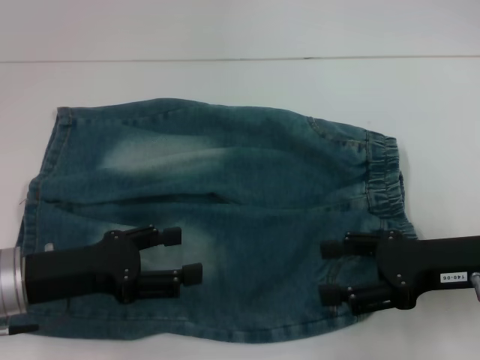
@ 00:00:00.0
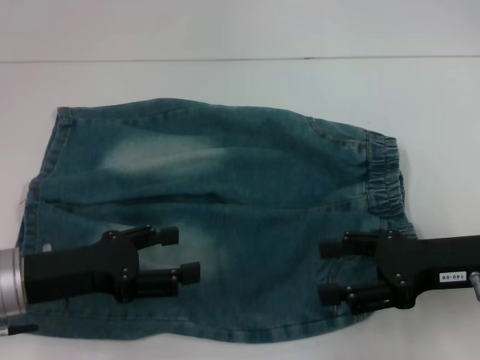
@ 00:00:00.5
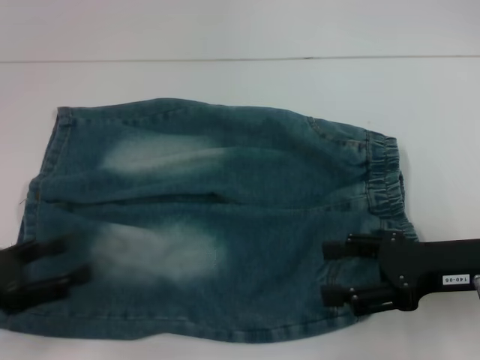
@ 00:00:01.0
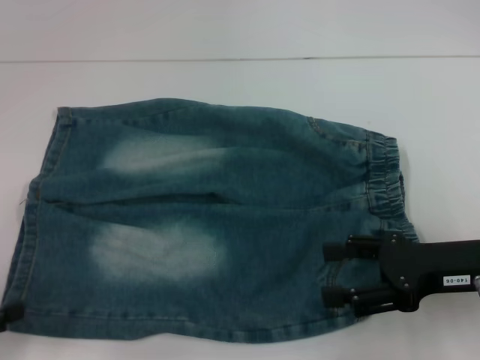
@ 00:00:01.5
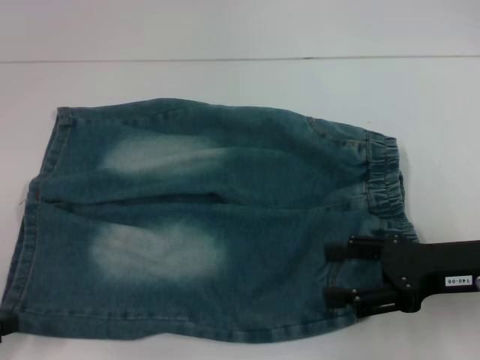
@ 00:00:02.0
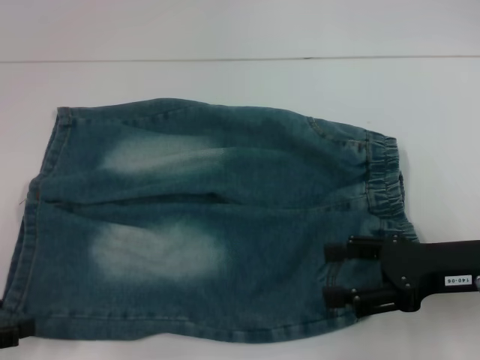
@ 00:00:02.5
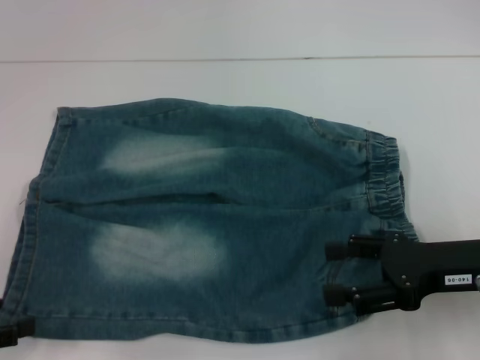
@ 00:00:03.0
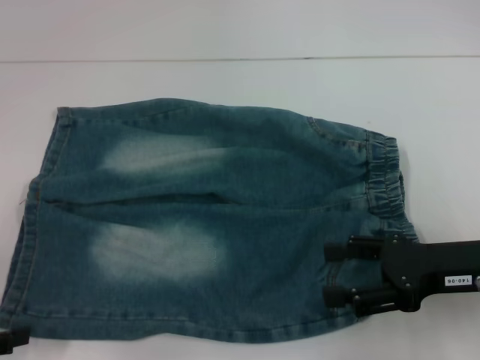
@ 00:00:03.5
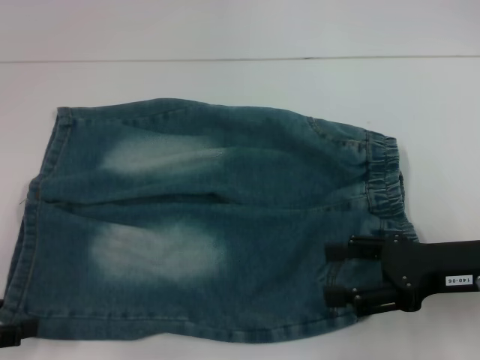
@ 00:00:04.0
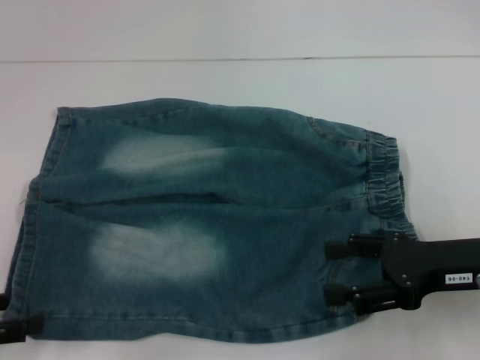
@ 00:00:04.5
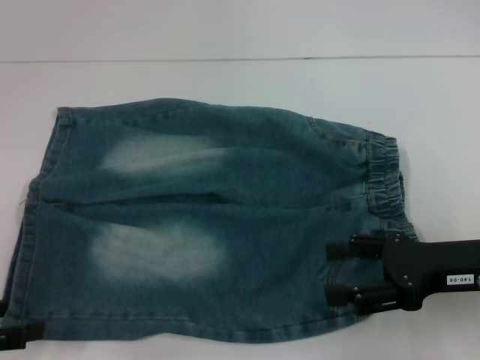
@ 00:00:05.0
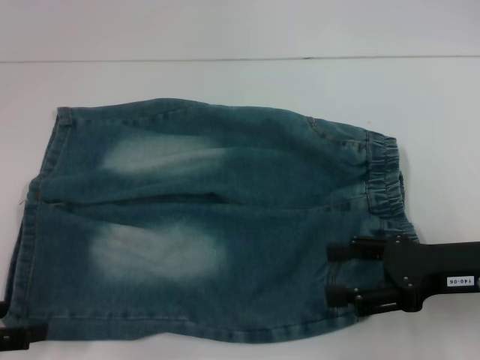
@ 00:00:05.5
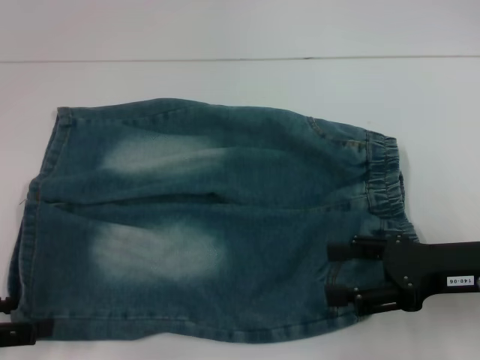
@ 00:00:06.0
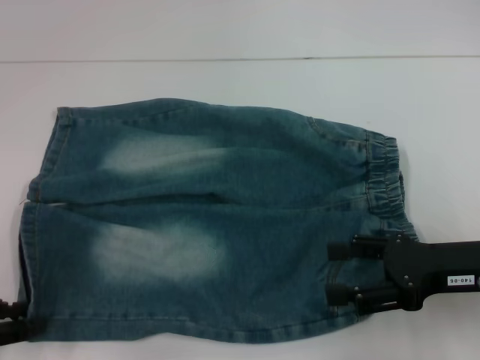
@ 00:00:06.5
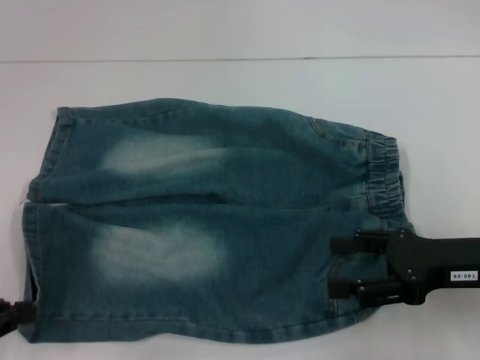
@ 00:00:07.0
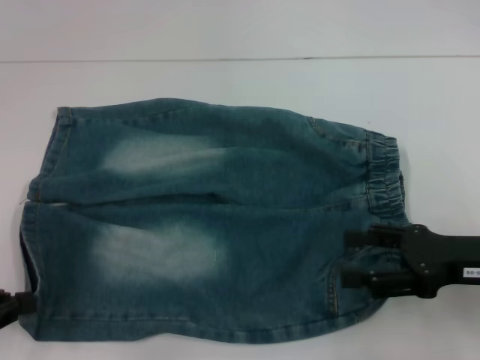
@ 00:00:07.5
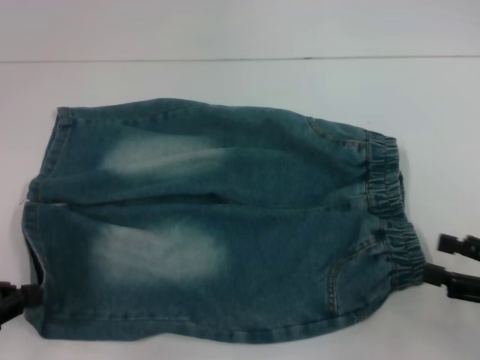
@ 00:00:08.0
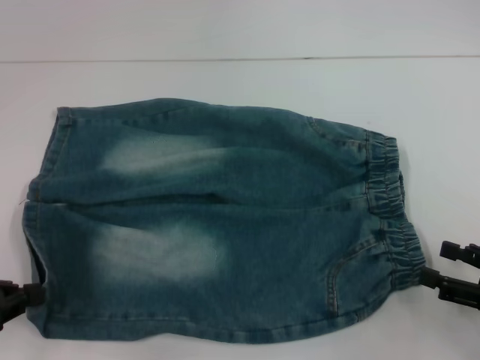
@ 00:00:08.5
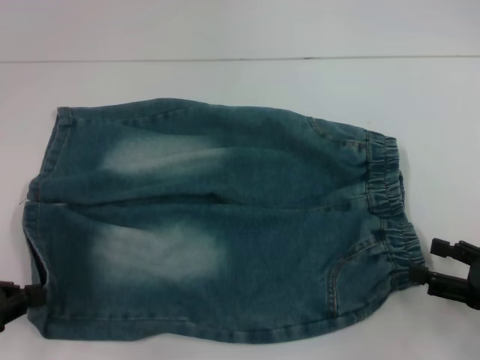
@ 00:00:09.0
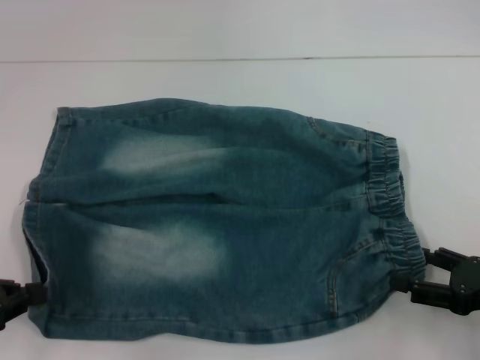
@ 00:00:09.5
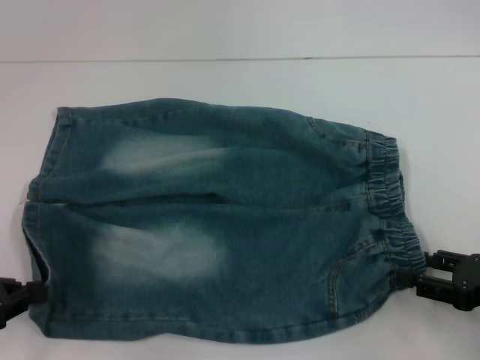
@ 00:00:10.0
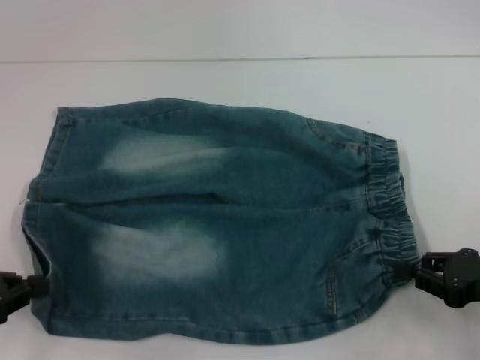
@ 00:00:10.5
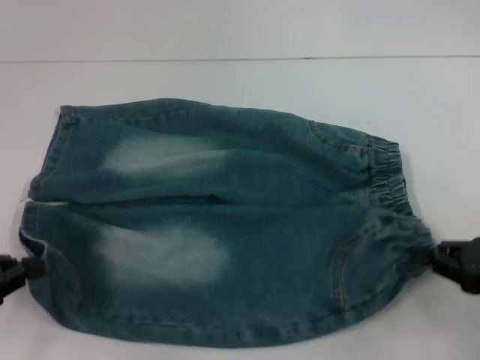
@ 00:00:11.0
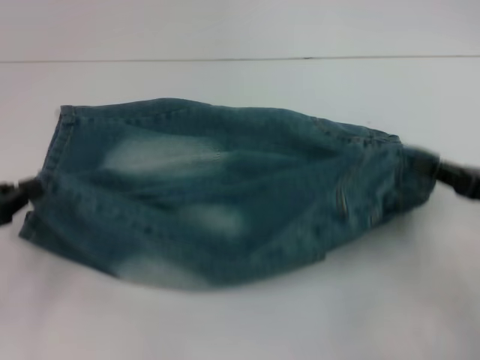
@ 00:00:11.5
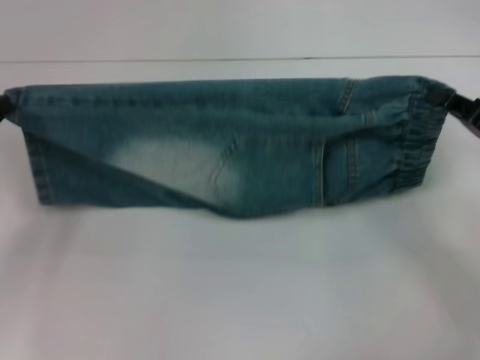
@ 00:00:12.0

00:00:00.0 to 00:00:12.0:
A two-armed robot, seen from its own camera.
Step, 00:00:00.0 to 00:00:07.0: Grab the lower left pant leg with your left hand.
Step, 00:00:07.5 to 00:00:10.5: Hold the lower right waistband with your right hand.
00:00:00.0 to 00:00:02.0: The left gripper is displaced to the left and backward by approximately 15 cm.
00:00:06.0 to 00:00:08.0: The left gripper closes its fingers. Meanwhile the right gripper shifts about 10 cm to the right and backward.
00:00:08.0 to 00:00:10.0: The grippers stay close to where they were, moving slightly.
00:00:10.0 to 00:00:12.0: Both grippers travel together forward, approximately 10 cm. The right gripper closes up.

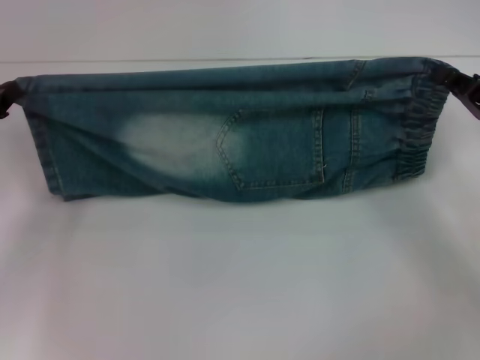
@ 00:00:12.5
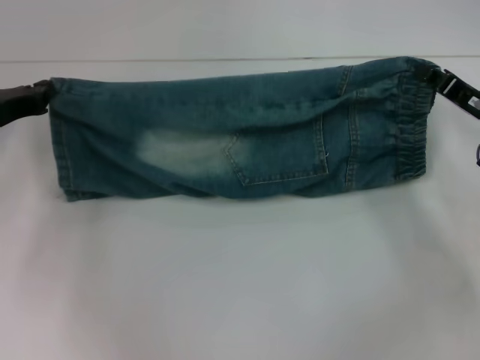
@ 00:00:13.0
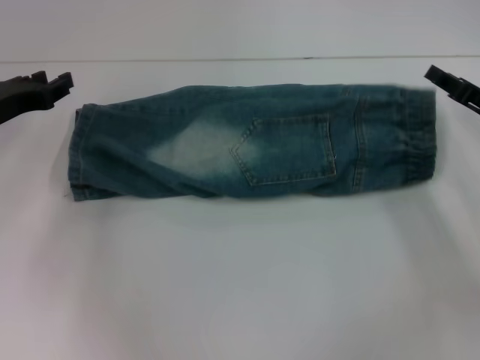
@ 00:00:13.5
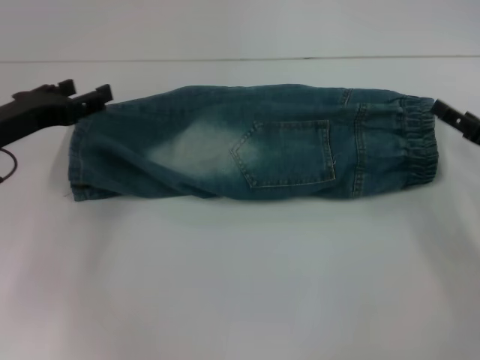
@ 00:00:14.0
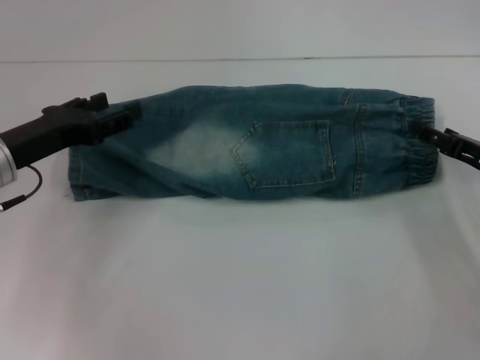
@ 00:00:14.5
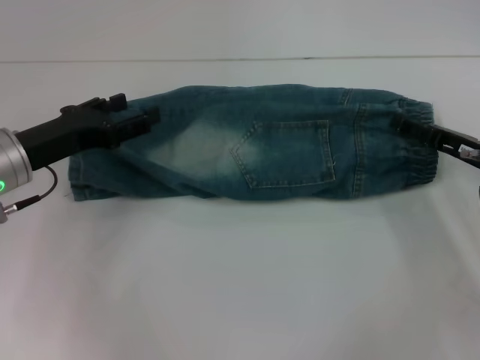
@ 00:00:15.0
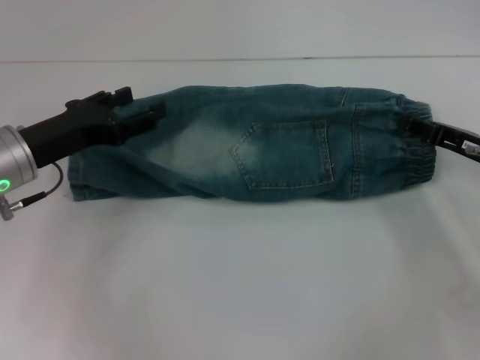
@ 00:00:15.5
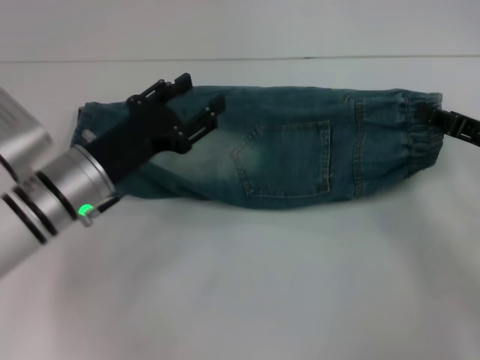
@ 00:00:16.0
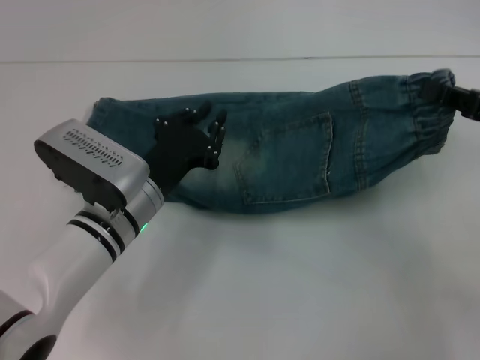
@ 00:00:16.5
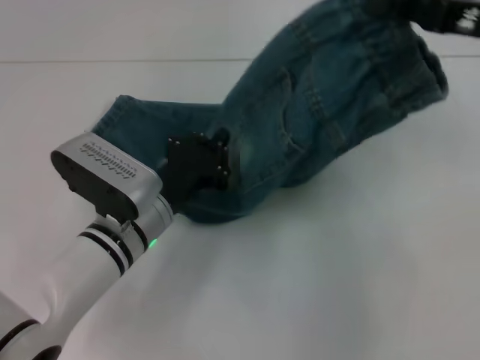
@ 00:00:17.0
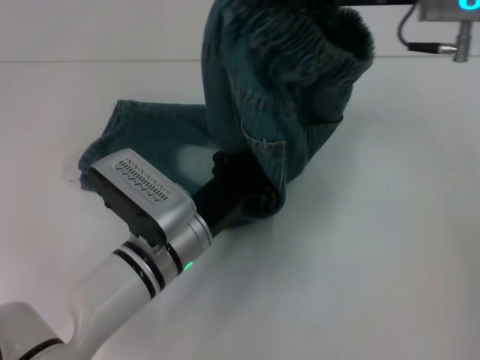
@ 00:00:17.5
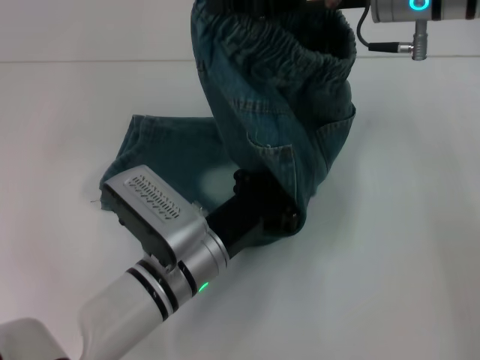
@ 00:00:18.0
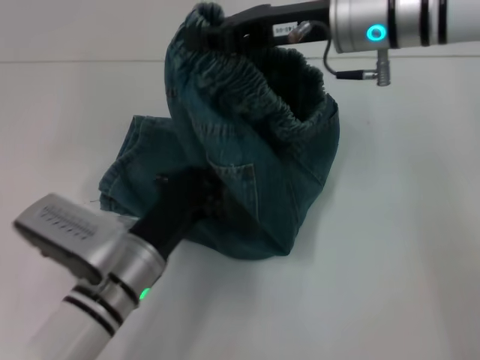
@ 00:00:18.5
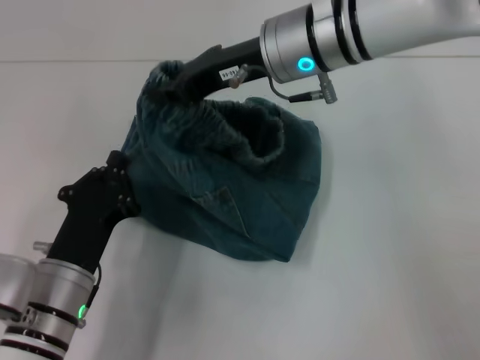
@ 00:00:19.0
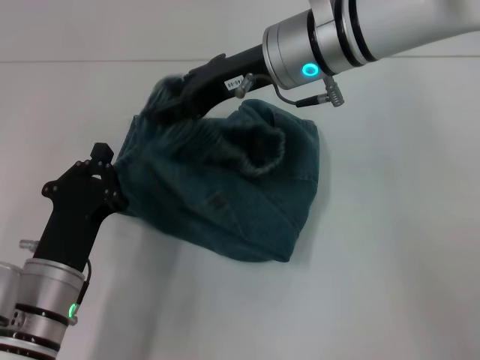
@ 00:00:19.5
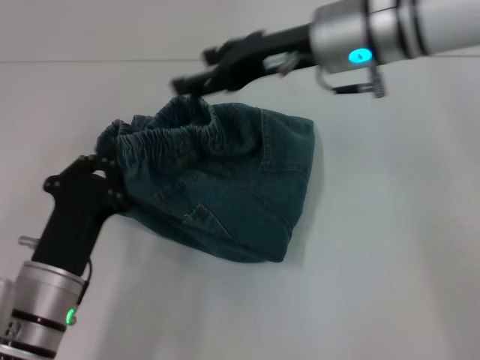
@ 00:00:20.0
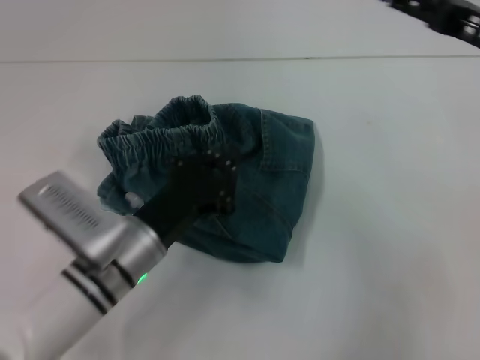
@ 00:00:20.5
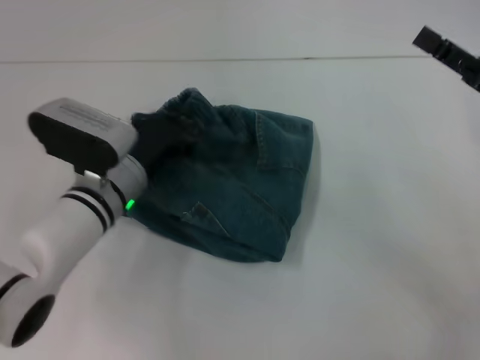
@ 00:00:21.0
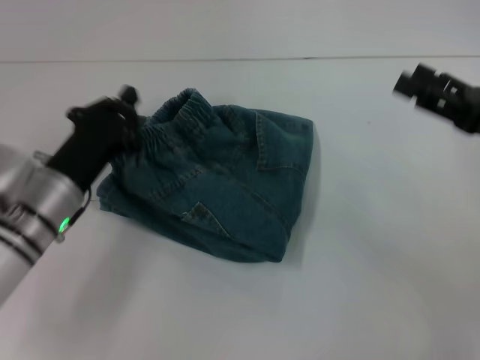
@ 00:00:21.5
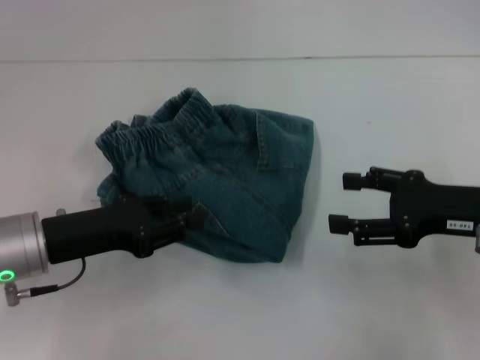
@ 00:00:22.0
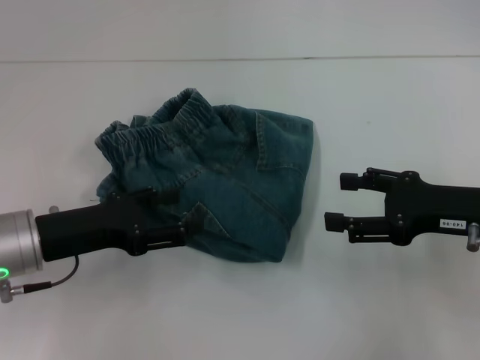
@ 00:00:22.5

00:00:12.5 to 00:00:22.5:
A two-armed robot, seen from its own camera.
Step, 00:00:14.0 to 00:00:15.5: Grab the waistband with your right hand.
Step, 00:00:16.0 to 00:00:18.0: Press the middle of the pants with your left hand.
Step, 00:00:18.5 to 00:00:19.5: Fold to the left with your right hand.
Step, 00:00:20.0 to 00:00:21.0: Adjust the pants with your left hand.
00:00:12.5 to 00:00:14.5: The right gripper opens, while the left gripper heads to the right, covering some 5 cm, and opens.
00:00:14.5 to 00:00:16.5: The right gripper travels upward by approximately 10 cm, and closes up, while the left gripper travels to the right and downward by about 15 cm, and closes.
00:00:16.5 to 00:00:18.5: The left gripper moves backward, approximately 5 cm, and closes up. The right gripper goes roughly 25 cm to the left, forward and upward.
00:00:18.5 to 00:00:20.5: The right gripper travels to the right by some 15 cm, and opens up.
00:00:20.5 to 00:00:22.5: The right gripper goes some 10 cm downward and backward, while the left gripper moves to the left and upward, approximately 10 cm, and opens its fingers.
